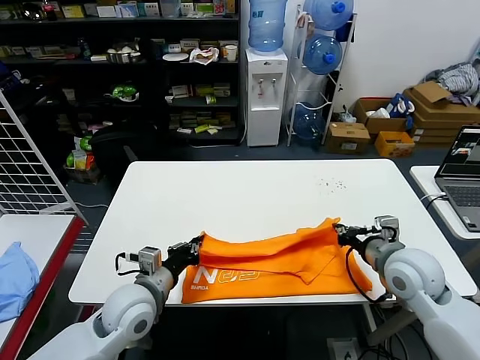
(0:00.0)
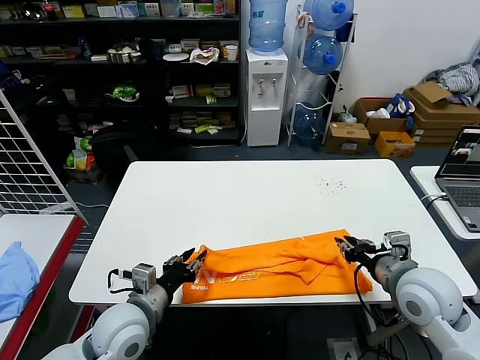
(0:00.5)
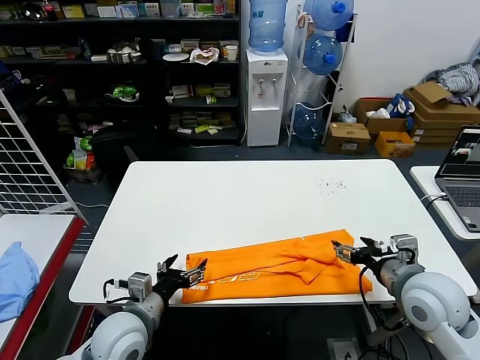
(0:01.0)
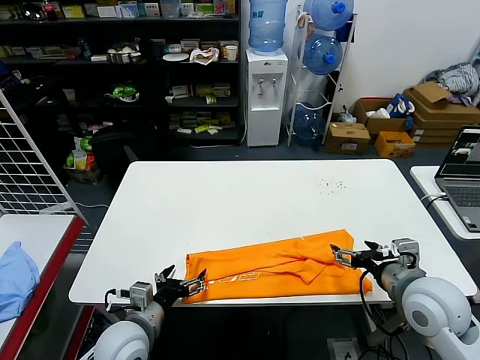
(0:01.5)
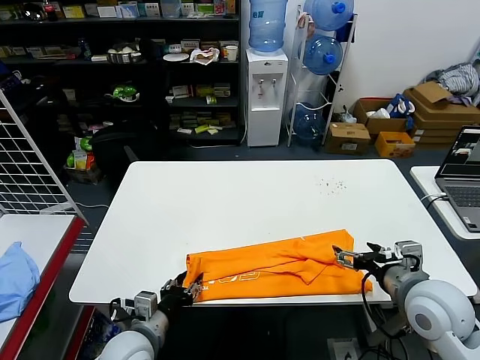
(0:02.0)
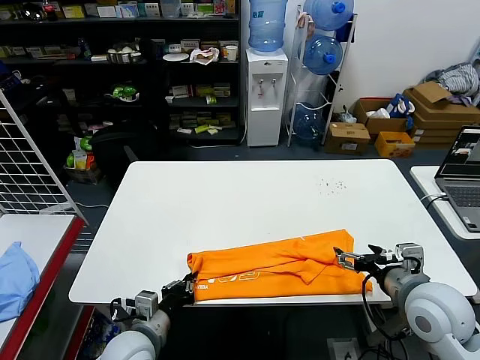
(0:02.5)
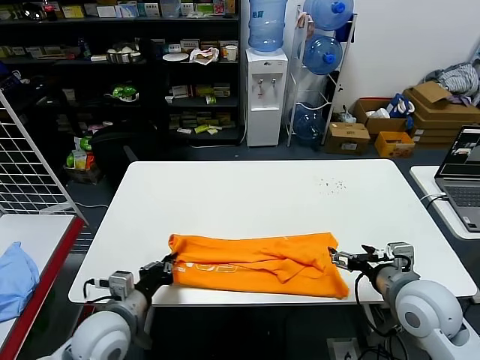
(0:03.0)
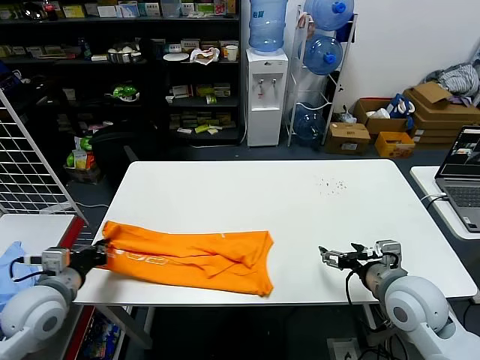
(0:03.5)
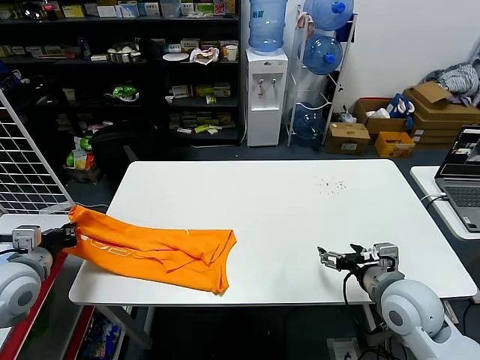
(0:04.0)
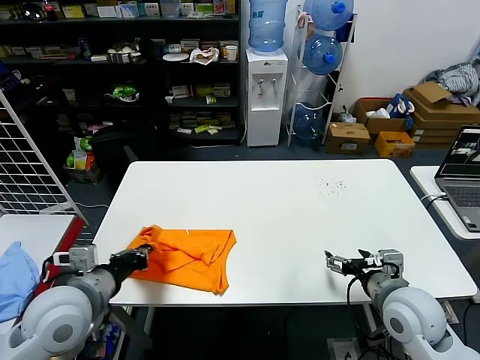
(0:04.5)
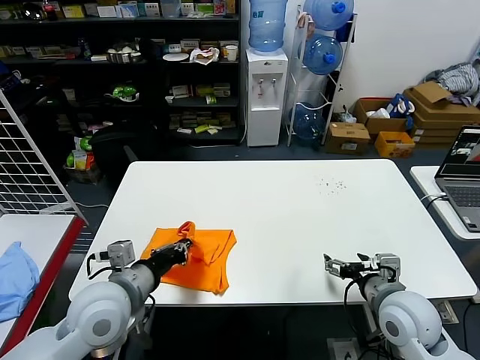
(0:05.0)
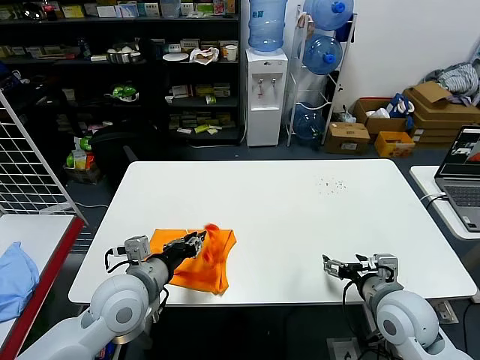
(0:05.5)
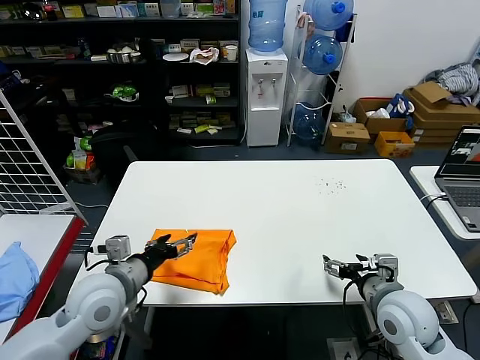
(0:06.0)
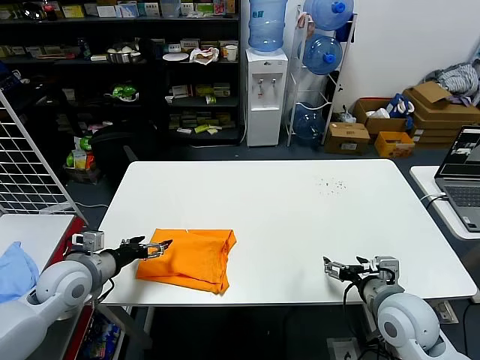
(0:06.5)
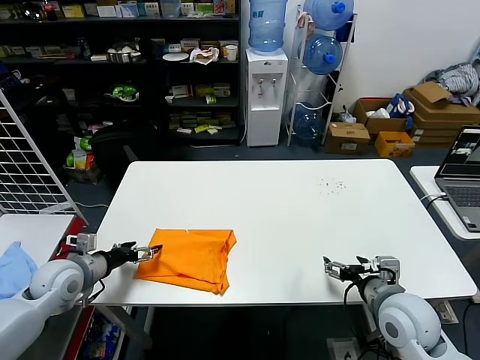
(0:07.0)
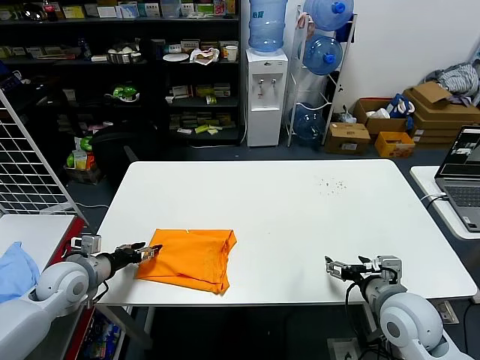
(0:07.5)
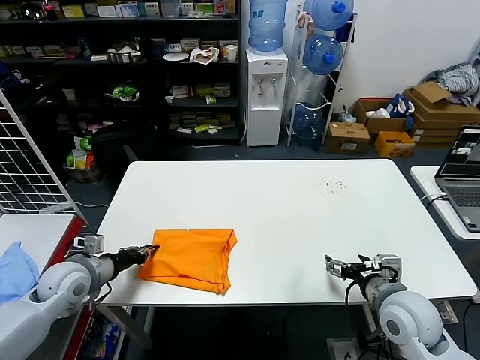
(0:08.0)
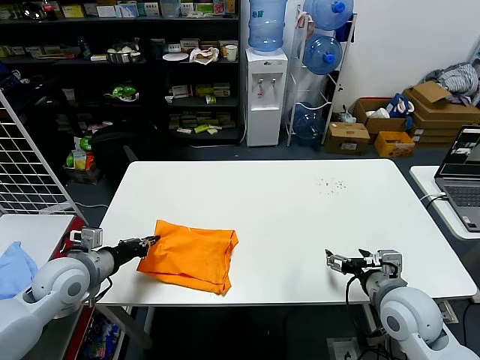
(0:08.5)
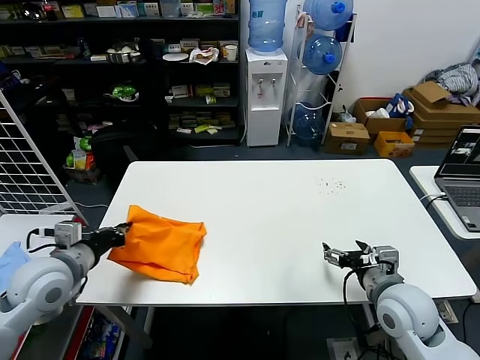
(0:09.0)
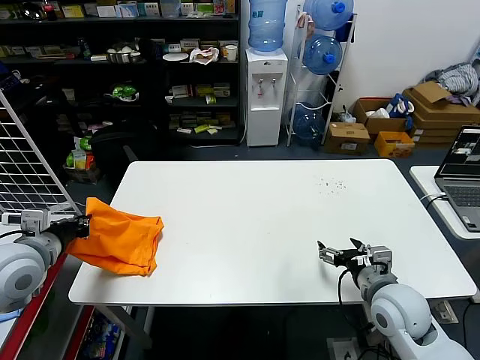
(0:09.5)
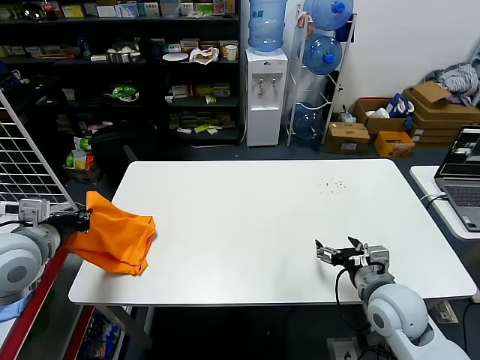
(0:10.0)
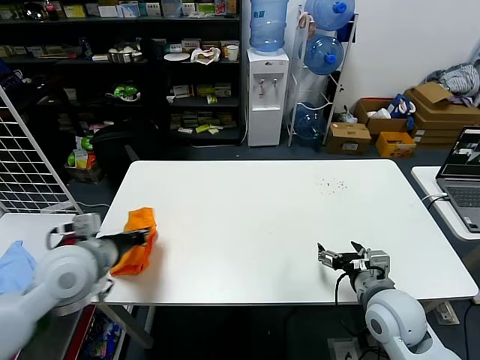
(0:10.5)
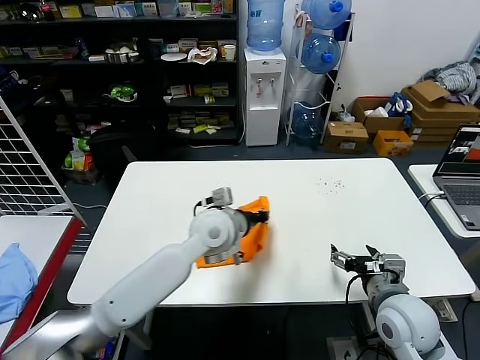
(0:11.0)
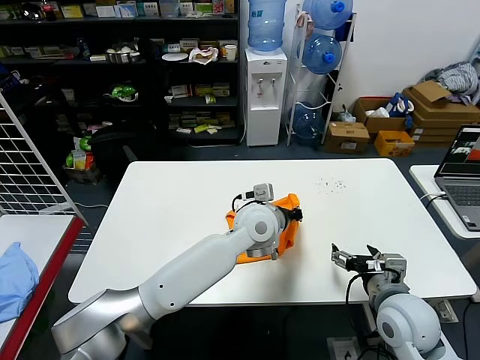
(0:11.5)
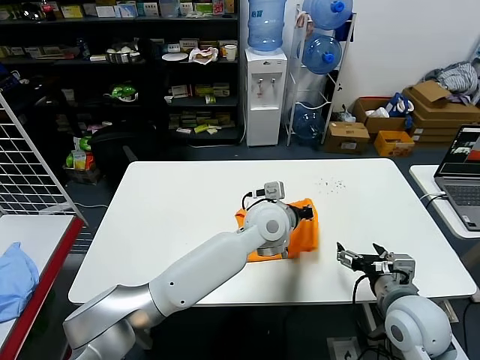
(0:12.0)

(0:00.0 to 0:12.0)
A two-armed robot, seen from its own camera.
Task of the whole recording: fold and organize the clothes.
Step, 0:00.5 - 0:02.0: use the left gripper to clamp the left edge of the fabric.
Step, 0:02.5 - 0:05.5: use the left gripper to drag the left edge of the fabric to the left and folds it over the right edge.
Step, 0:06.0 - 0:12.0: Flip the folded clothes over with left gripper.
0:00.0 - 0:02.0: The left gripper travels backward and downward by some 10 cm, and opens its fingers. Meanwhile the right gripper shifts some 5 cm backward, and opens up.
0:02.0 - 0:04.0: The left gripper heads to the left, upward and forward, covering approximately 25 cm, and closes.
0:04.0 - 0:06.0: The left gripper is displaced to the right by about 15 cm, and opens up.
0:06.0 - 0:08.0: The left gripper goes some 15 cm to the left, downward and forward, and closes up.
0:08.0 - 0:10.0: The left gripper is displaced upward by some 15 cm.
0:10.0 - 0:12.0: The left gripper shifts roughly 40 cm to the right.

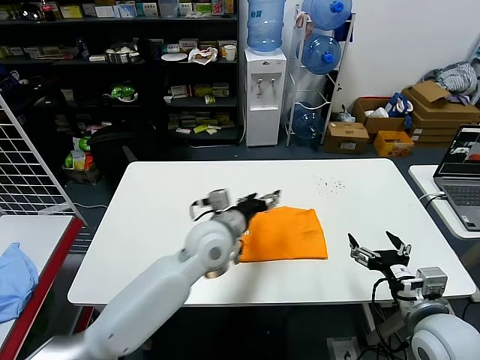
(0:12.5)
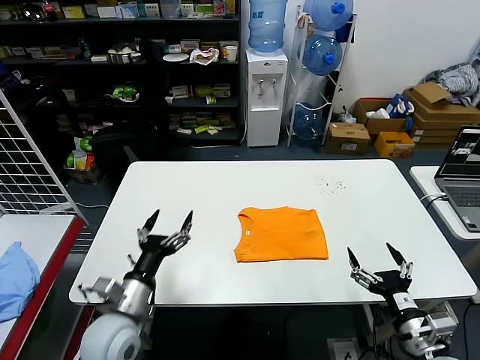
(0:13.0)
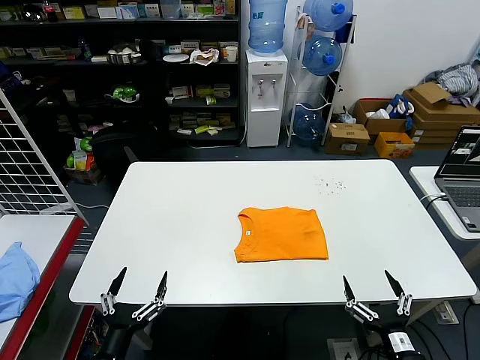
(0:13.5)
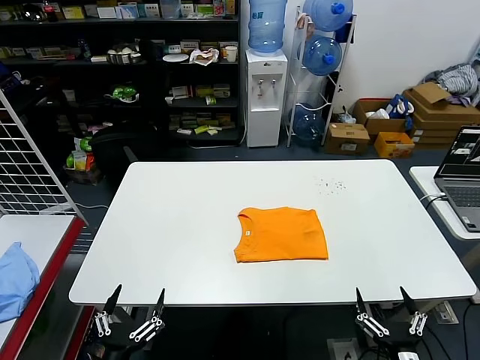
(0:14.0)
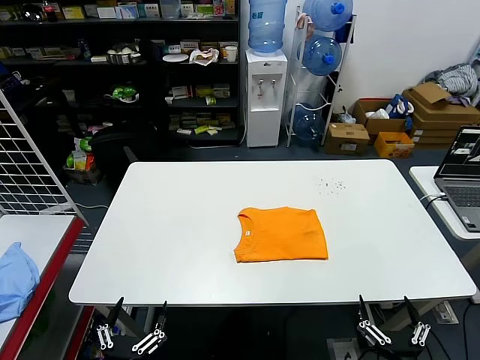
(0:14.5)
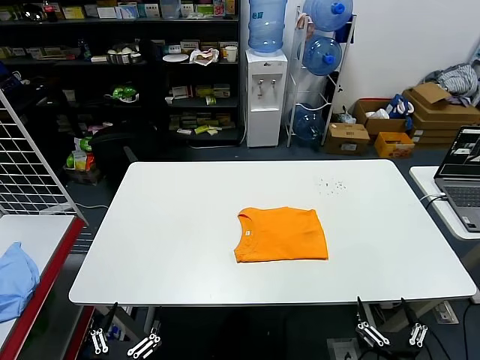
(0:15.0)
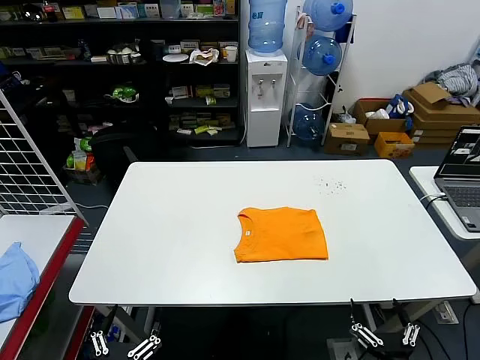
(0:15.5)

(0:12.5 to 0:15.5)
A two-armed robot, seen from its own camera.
Task of the whole recording: fold and organize the clothes.
0:12.5 - 0:14.0: The left gripper travels backward and to the left by roughly 40 cm; the right gripper shifts about 20 cm backward and downward.
0:14.0 - 0:15.5: There are only small adjustments of the grippers.

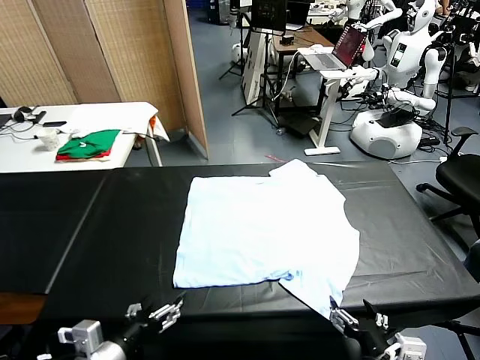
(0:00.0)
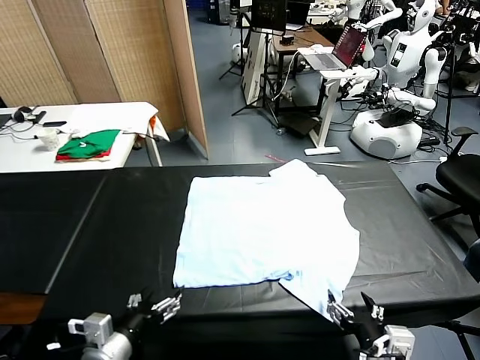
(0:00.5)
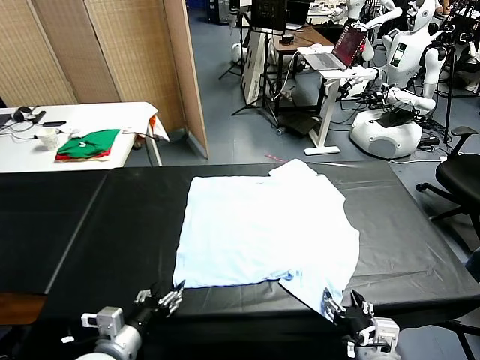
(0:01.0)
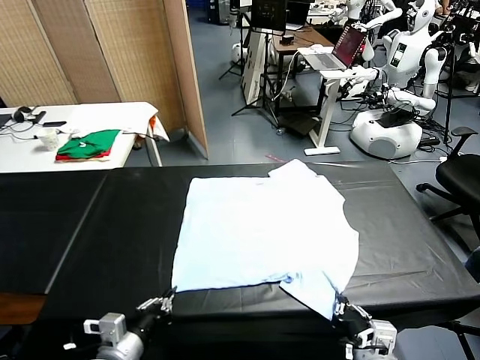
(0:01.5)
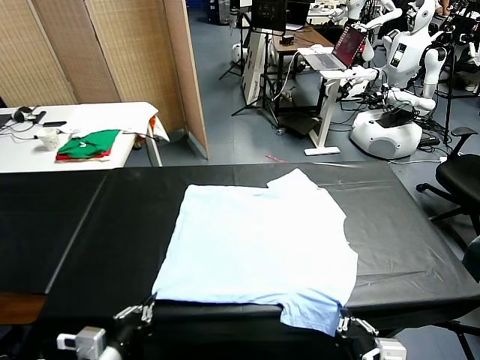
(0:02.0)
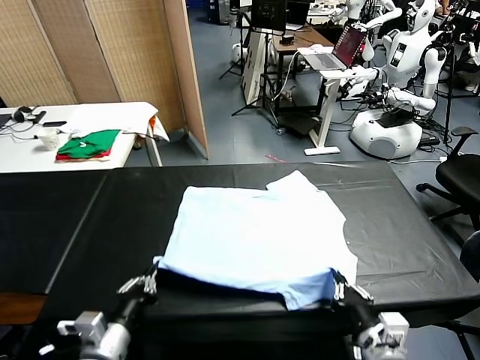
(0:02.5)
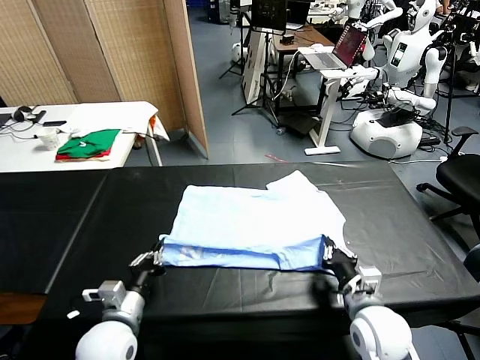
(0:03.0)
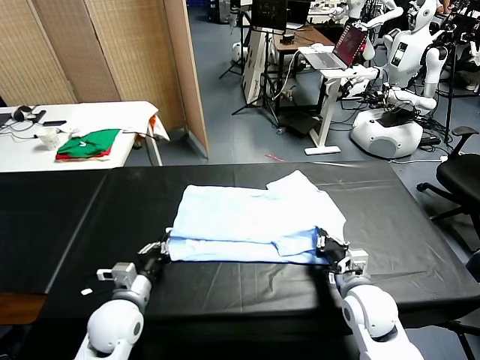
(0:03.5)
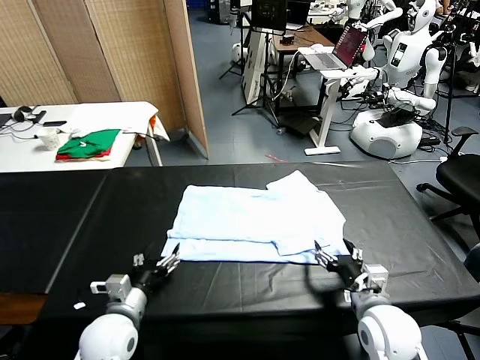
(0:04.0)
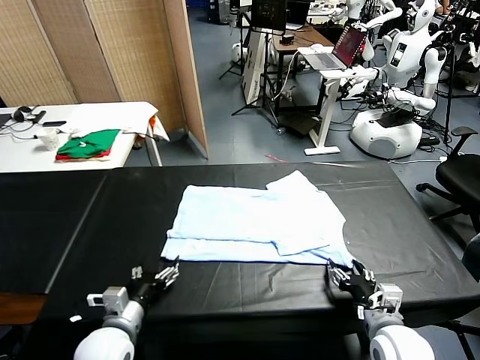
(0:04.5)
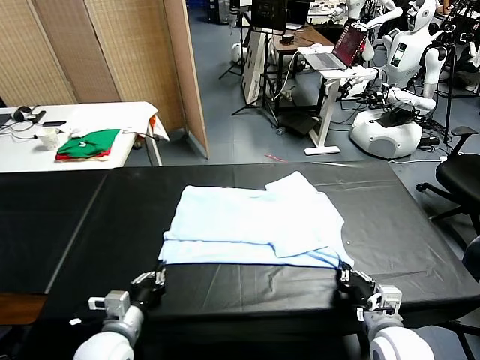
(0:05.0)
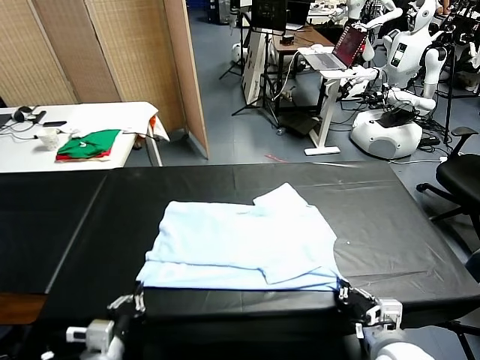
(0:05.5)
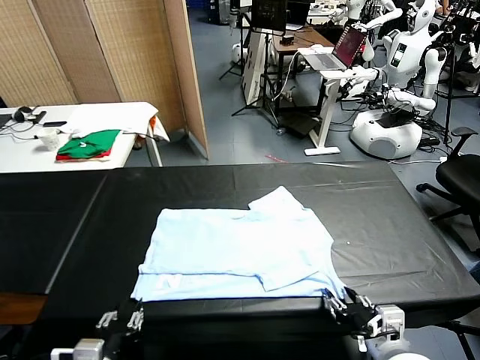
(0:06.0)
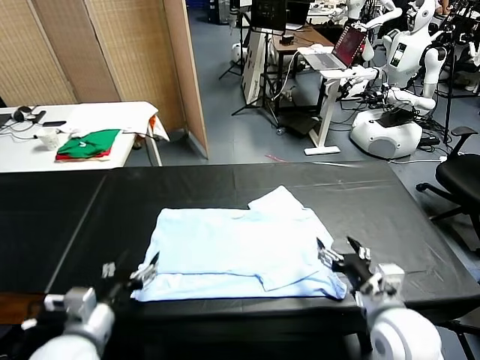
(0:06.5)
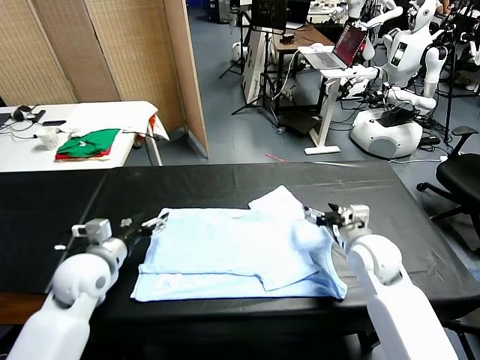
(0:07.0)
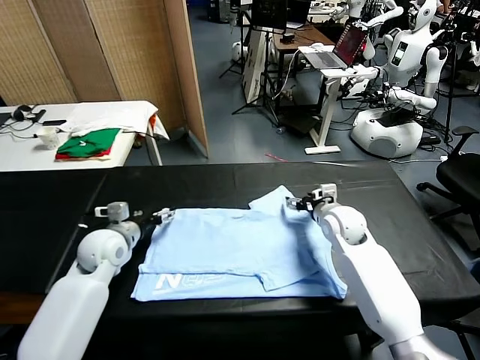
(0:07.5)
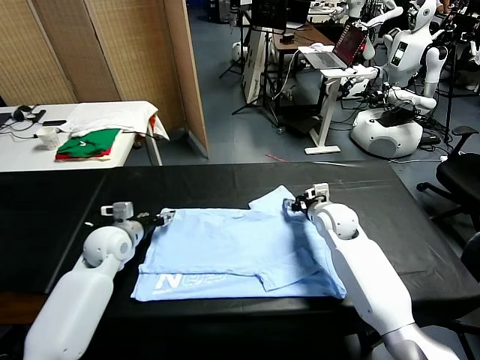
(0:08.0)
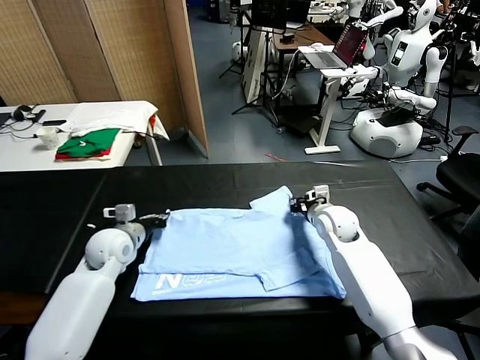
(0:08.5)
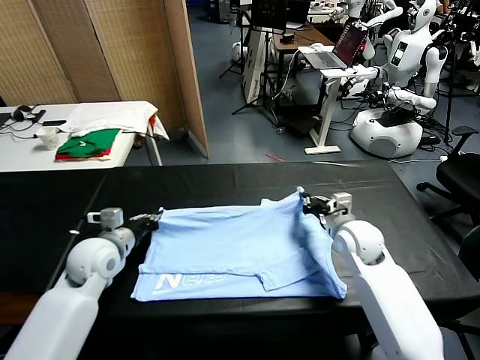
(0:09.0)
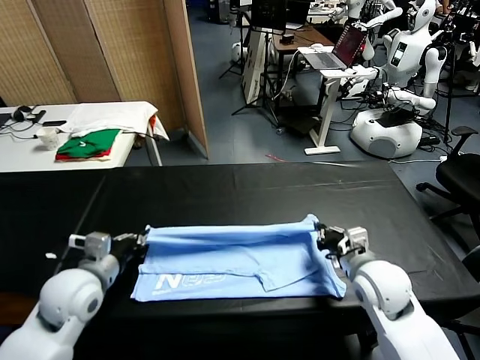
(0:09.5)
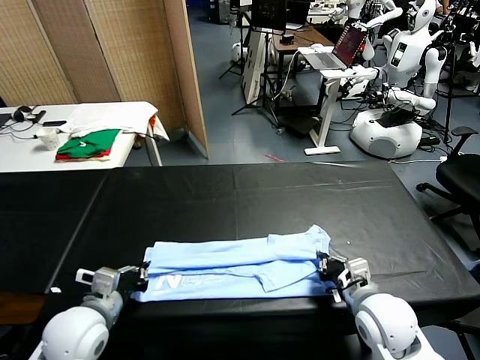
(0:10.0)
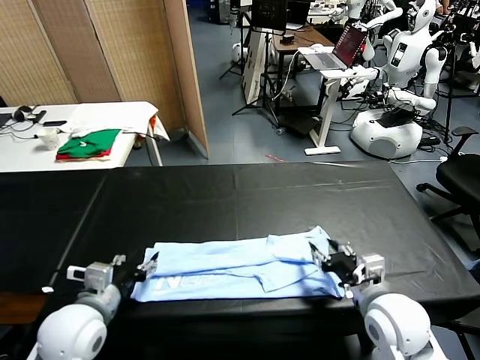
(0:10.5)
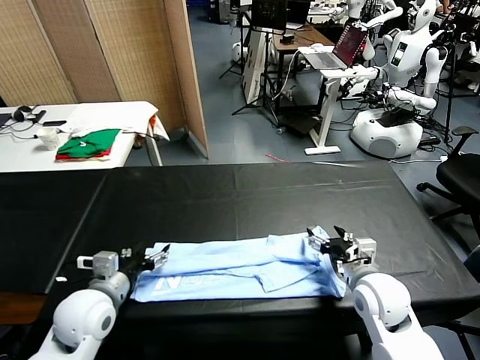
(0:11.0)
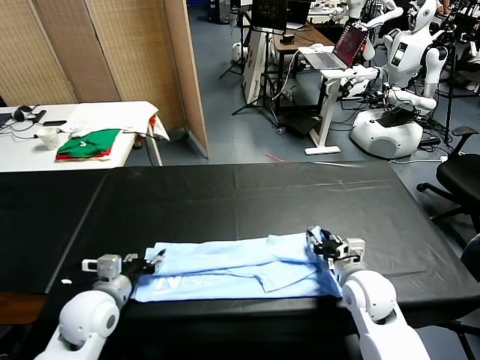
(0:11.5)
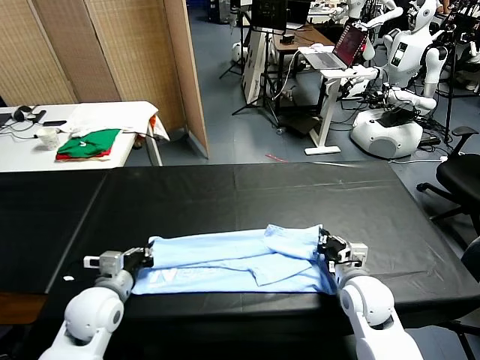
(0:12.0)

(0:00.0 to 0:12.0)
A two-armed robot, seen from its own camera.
Task of the whole recording: fold and organize the clothes.
Step, 0:00.0 - 0:01.5: use both grippers simultaneously to clamp the lower edge of the clothing fabric.
Step, 0:02.5 - 0:04.0: use both grippers to drag the lower edge of the fabric forward and fold it over the upper edge.
Step, 0:04.5 - 0:06.0: Drag the clothes downward with both gripper.
Step, 0:06.5 - 0:08.5: use both grippers simultaneously to clamp the upper edge of the clothing fabric.
Step, 0:09.0 - 0:10.5: use both grippers to drag the upper edge of the fabric backward and fold it over the lower edge.
0:02.0 - 0:04.0: The grippers both shift forward and downward by about 10 cm. The right gripper opens, while the left gripper opens up.
0:04.0 - 0:06.0: The left gripper shifts some 15 cm backward and upward, and closes, then reopens. Meanwhile the right gripper goes approximately 5 cm upward, and closes and opens again.
0:06.0 - 0:08.0: Both grippers move forward, roughly 30 cm. The right gripper closes up.
0:08.0 - 0:10.0: The two grippers go about 20 cm backward. The left gripper closes.
0:10.0 - 0:12.0: The two grippers go approximately 5 cm forward. The right gripper opens and closes again. The left gripper opens and closes again.
